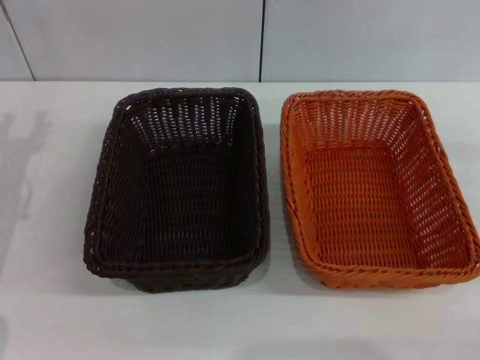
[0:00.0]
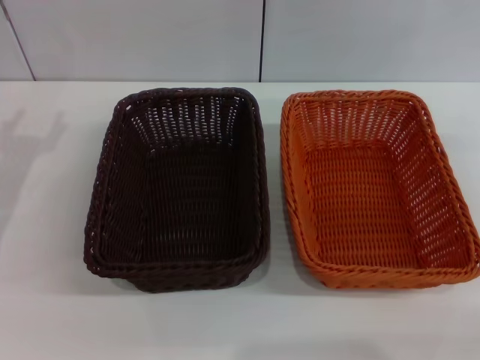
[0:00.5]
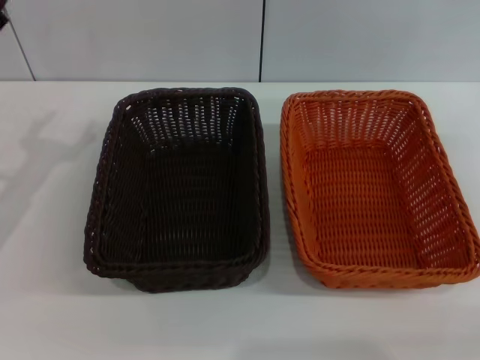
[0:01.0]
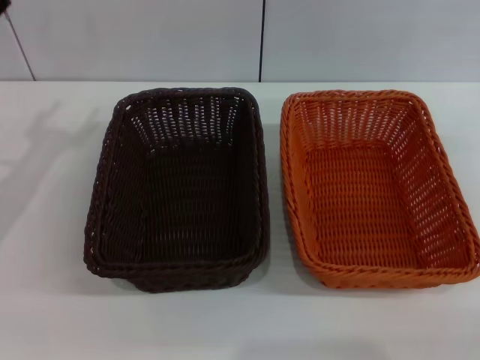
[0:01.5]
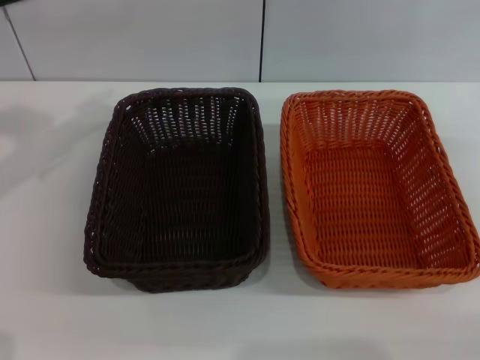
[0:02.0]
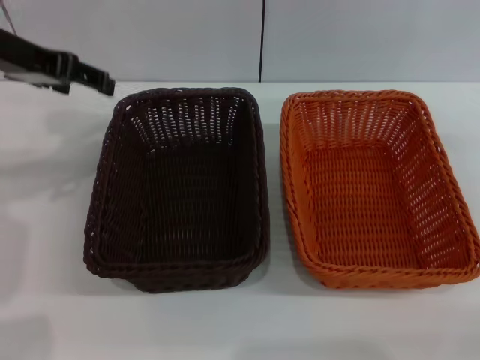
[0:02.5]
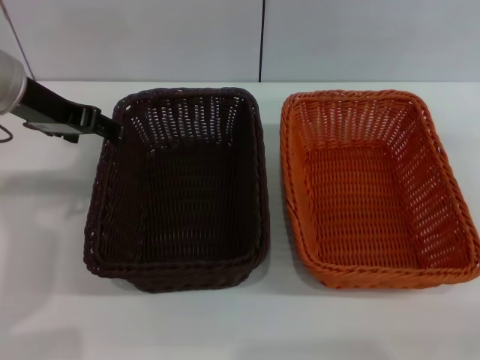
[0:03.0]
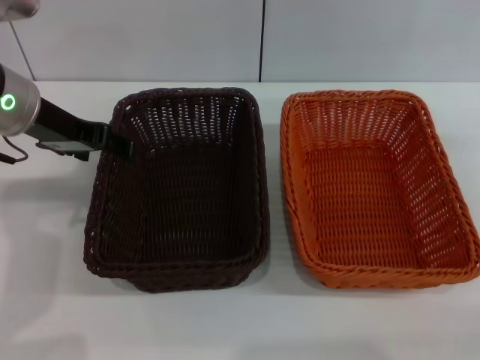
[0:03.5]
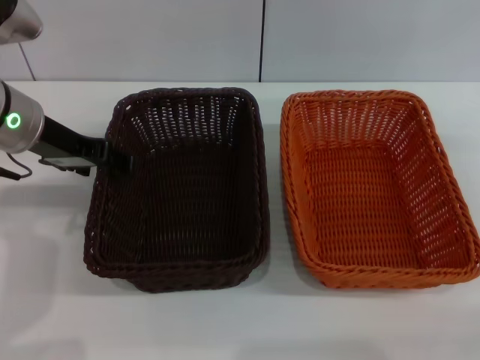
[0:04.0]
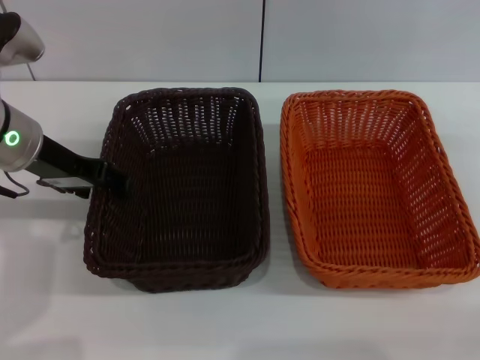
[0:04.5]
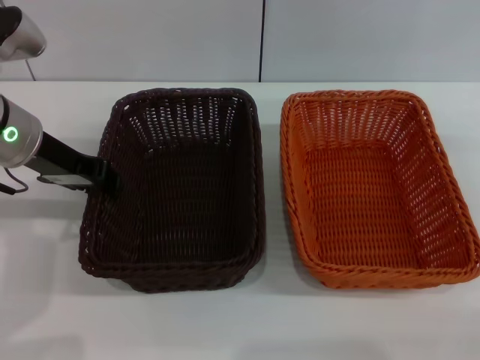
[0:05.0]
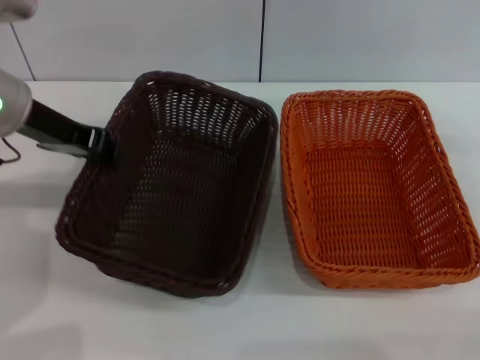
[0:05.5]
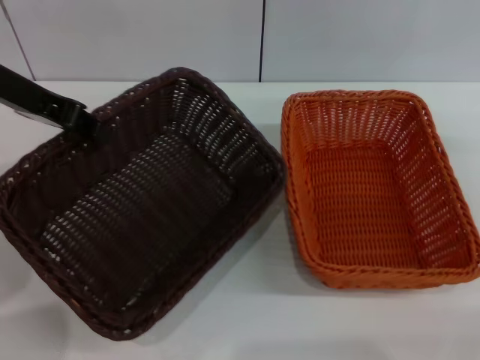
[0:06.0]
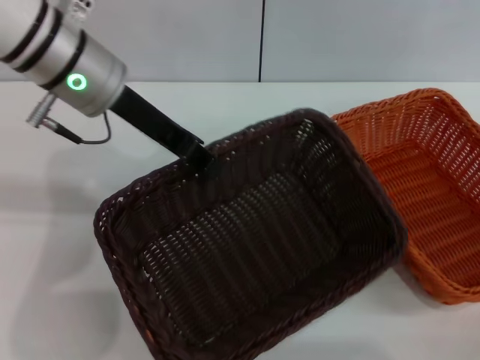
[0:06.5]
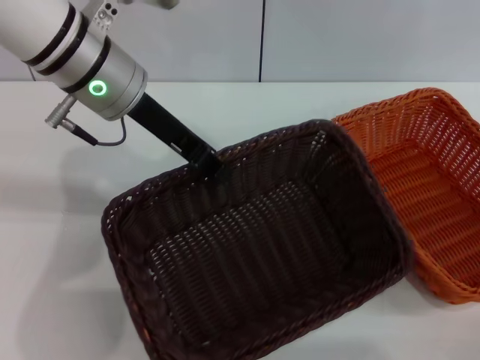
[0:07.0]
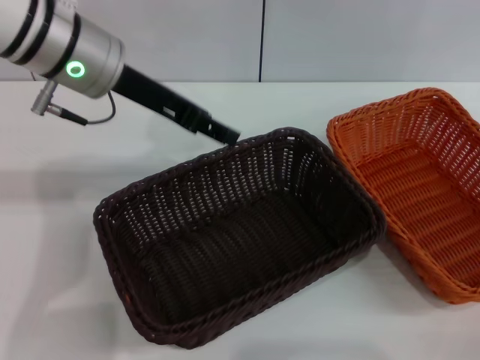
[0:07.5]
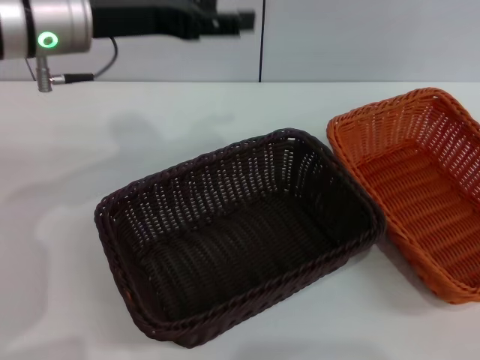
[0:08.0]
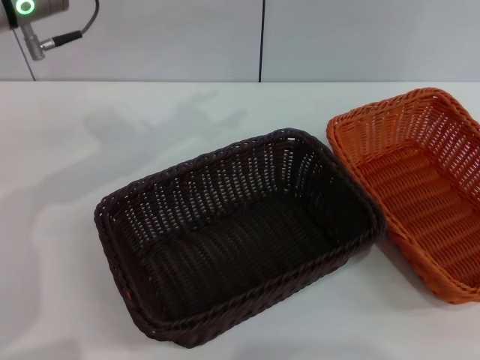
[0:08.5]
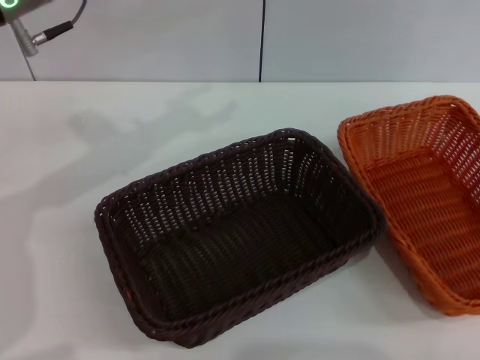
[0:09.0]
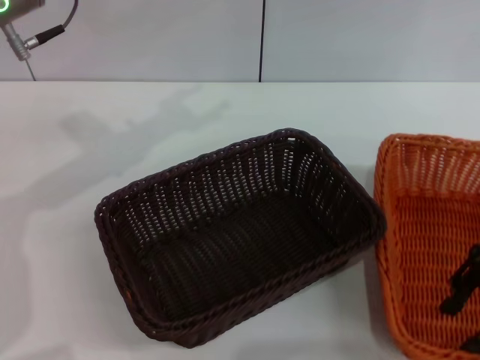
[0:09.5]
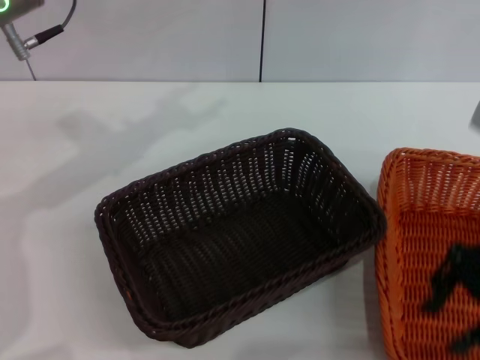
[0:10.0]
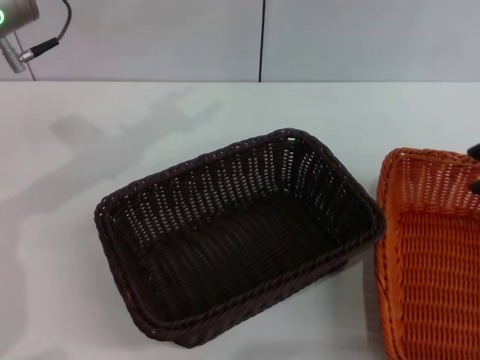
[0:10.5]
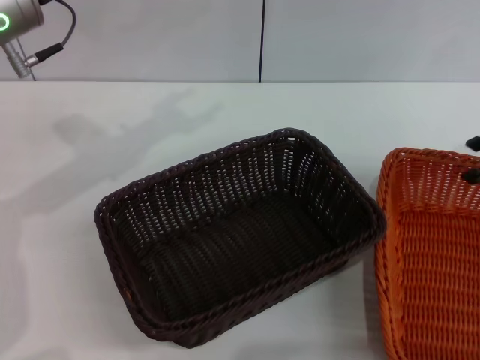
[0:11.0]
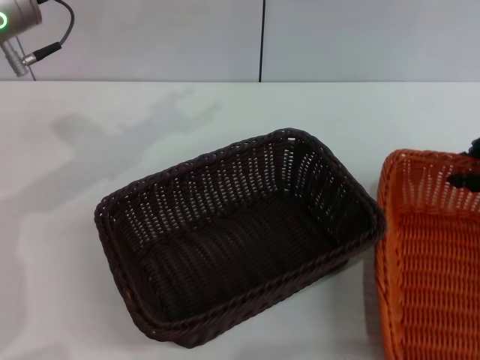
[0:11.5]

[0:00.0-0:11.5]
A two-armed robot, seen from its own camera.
Step, 0:00.0 to 0:05.5: Pick up the dark basket with the left gripper.
Step, 0:06.0 to 0:07.0: Place the dark basket in the center of view with the left gripper.
0:00.0 to 0:02.0: The left gripper moves upward and forward, about 15 cm.
0:02.0 to 0:04.0: The left gripper moves to the right, approximately 10 cm.
0:04.0 to 0:06.0: The left gripper is displaced upward by roughly 5 cm, and closes.
0:06.0 to 0:07.5: The left gripper shifts roughly 10 cm to the right, and opens.
0:07.5 to 0:09.5: The right gripper is displaced to the left and upward by roughly 10 cm. The left gripper goes some 5 cm to the left, and opens its fingers.
0:09.5 to 0:11.5: The right gripper goes some 10 cm to the right and forward.

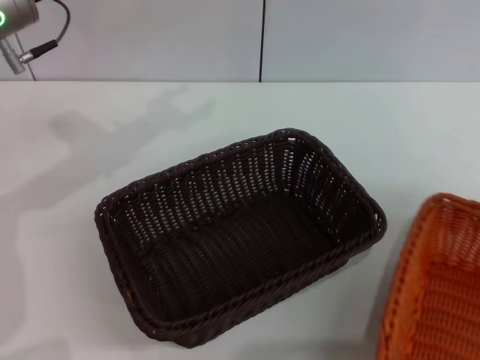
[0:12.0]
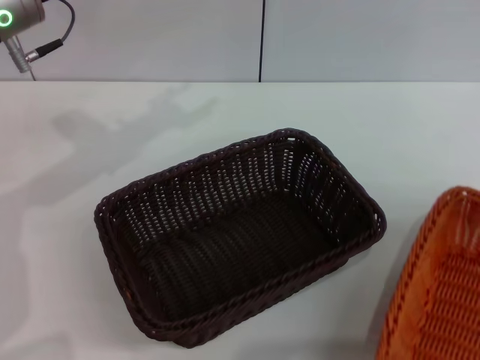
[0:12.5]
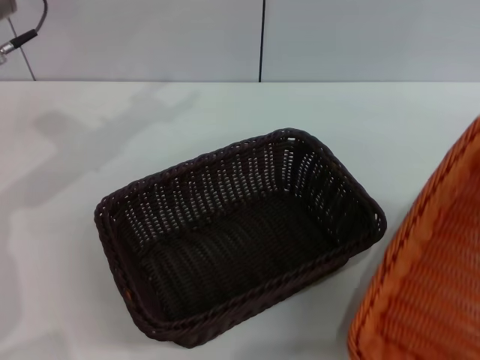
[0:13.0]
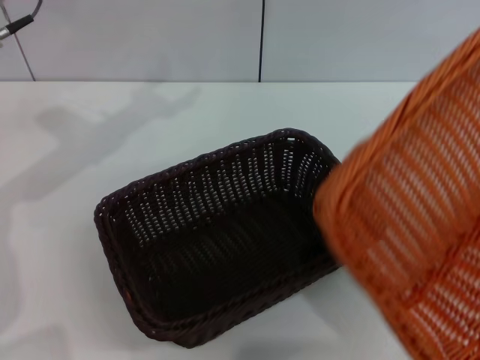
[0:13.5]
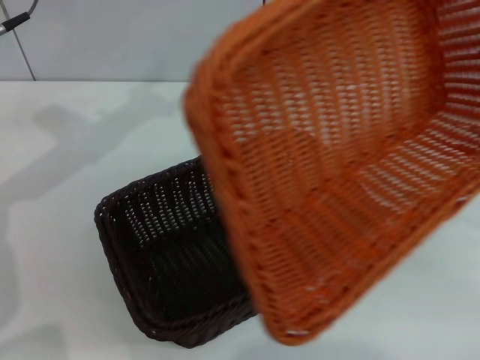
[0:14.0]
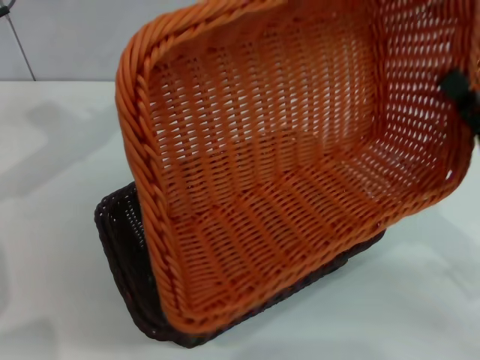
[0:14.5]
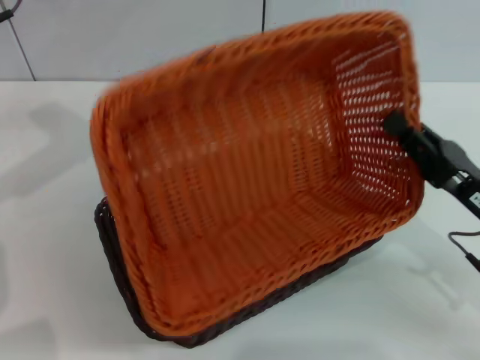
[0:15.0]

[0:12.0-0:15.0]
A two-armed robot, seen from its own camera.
Step, 0:13.5 to 0:15.0: Place the light basket on the dark basket with the right gripper.
0:12.0 to 0:13.5: The right gripper travels backward and to the right by some 10 cm.
0:13.5 to 0:15.0: The right gripper is displaced to the left and downward by some 25 cm.
